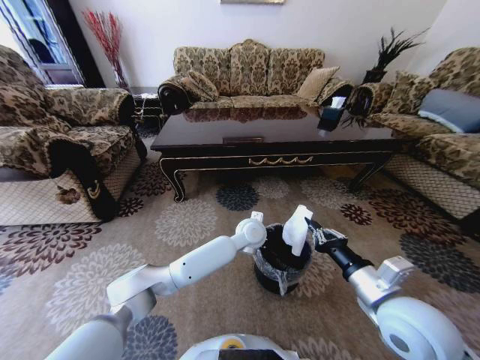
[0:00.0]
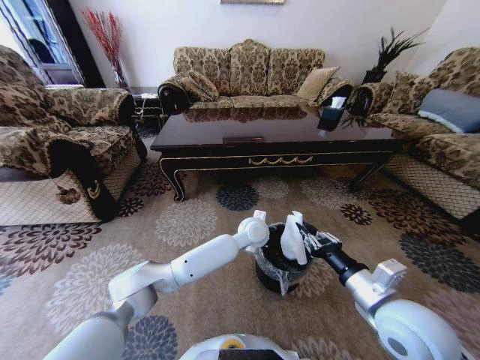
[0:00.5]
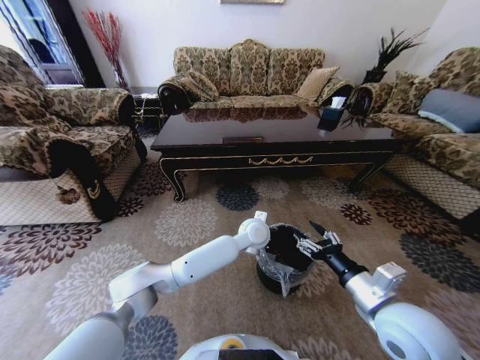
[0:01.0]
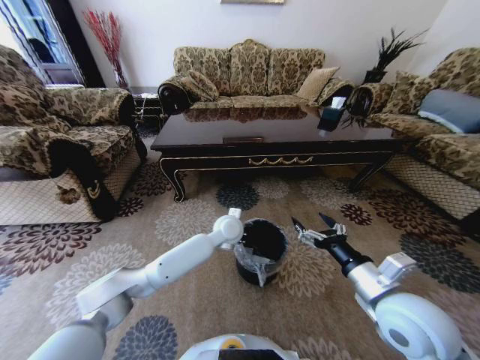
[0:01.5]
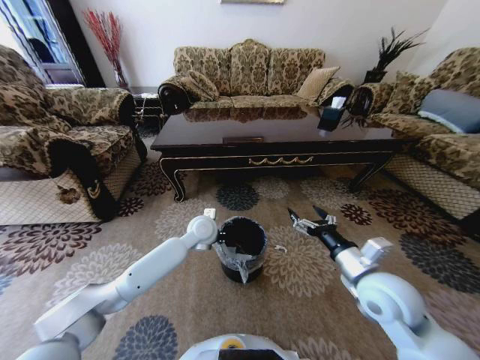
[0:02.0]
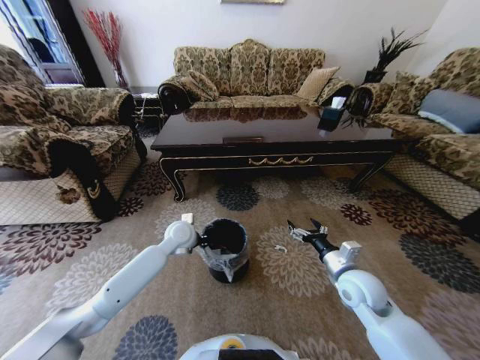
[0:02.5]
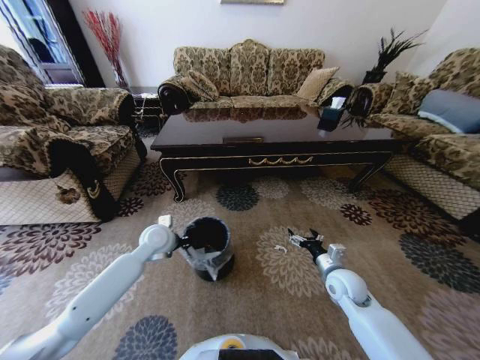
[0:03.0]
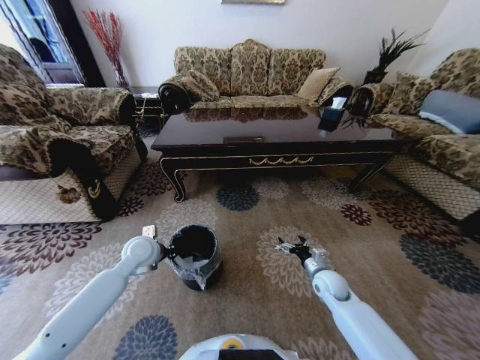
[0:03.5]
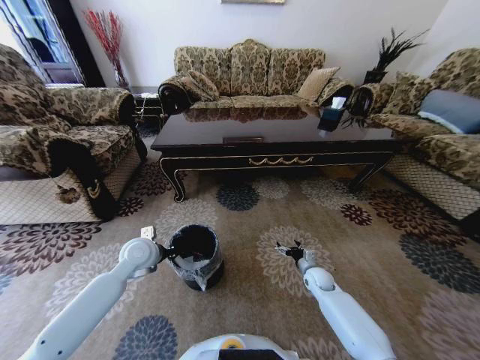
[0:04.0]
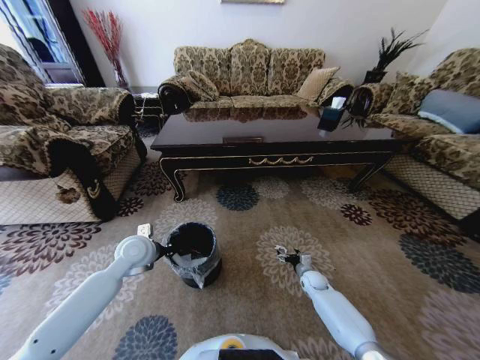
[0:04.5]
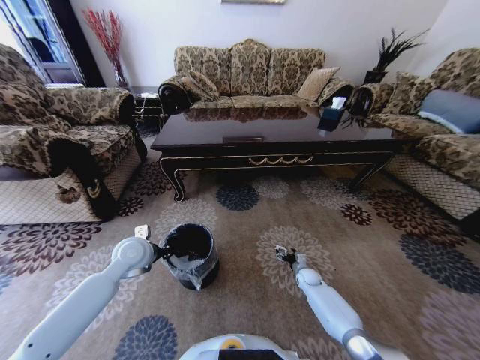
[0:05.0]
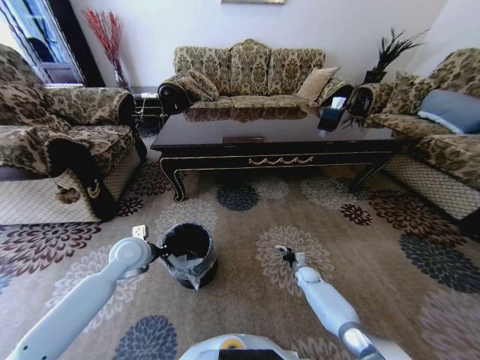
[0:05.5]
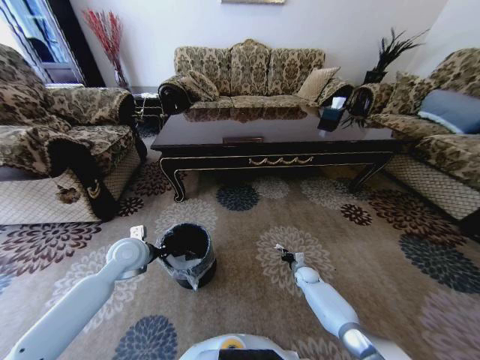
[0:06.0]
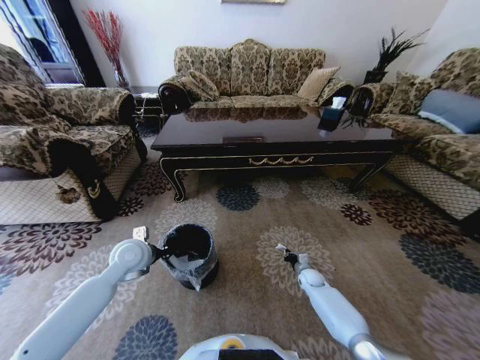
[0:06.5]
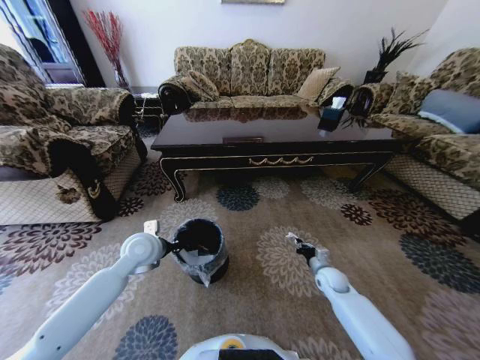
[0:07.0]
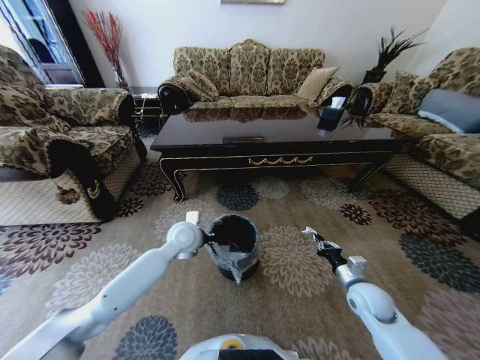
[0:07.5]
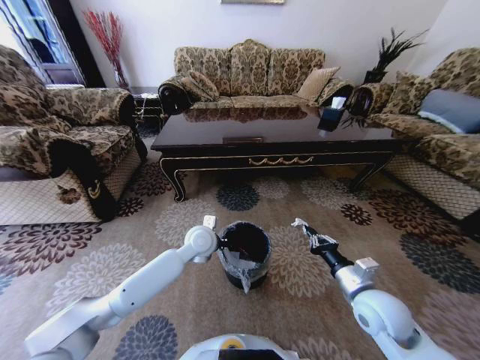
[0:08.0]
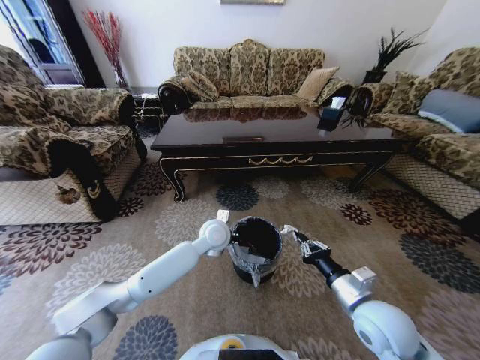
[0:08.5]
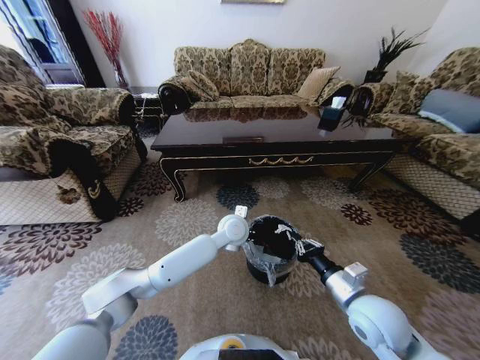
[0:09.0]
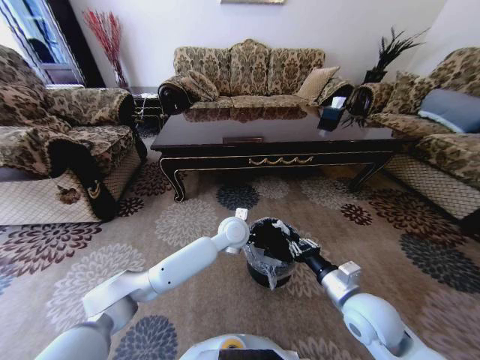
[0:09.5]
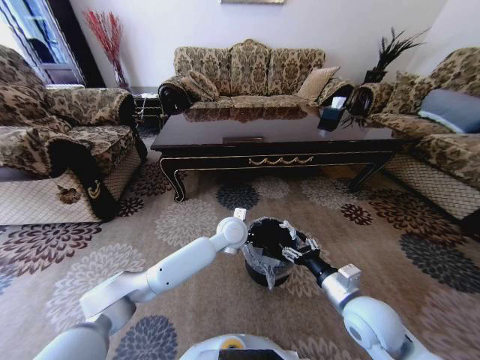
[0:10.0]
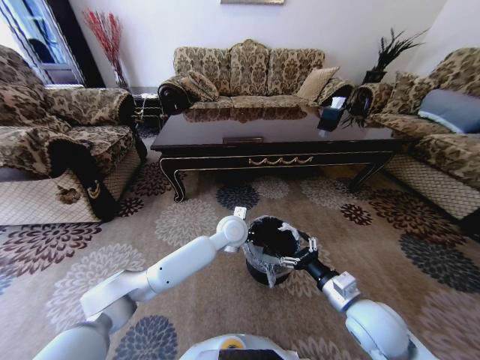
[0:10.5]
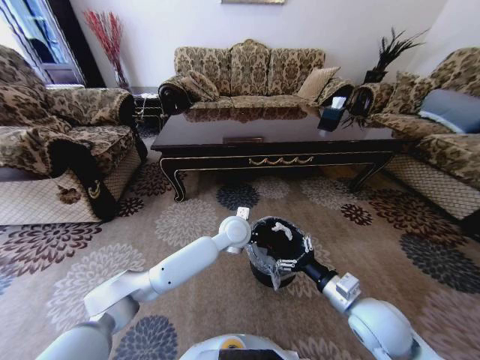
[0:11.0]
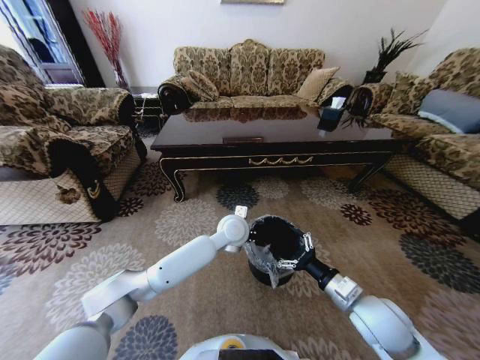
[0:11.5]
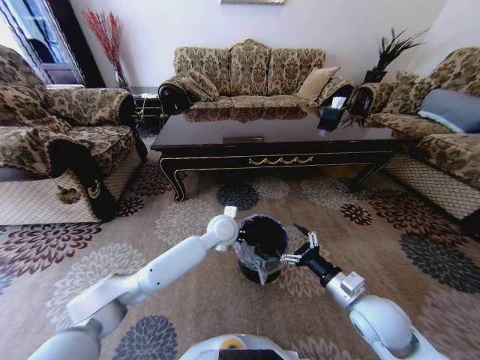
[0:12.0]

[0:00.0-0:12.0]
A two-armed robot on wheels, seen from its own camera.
Task of the whole recording: Move to the front of the table and pick up the trash from the floor, then place it into the trash bin.
0:00.0 to 0:02.0: The right gripper moves forward, roughly 5 cm, and opens. Meanwhile the left gripper shifts about 15 cm to the left.
0:02.0 to 0:04.0: The right gripper heads downward and forward, covering roughly 30 cm; the left gripper moves to the left and backward, about 20 cm.
0:04.0 to 0:06.0: The right gripper shifts roughly 10 cm downward, and closes its fingers.
0:06.0 to 0:08.0: The right gripper goes some 35 cm upward and backward; the left gripper goes roughly 20 cm to the right.
0:08.0 to 0:10.0: The right gripper opens. The left gripper shifts approximately 10 cm to the right.

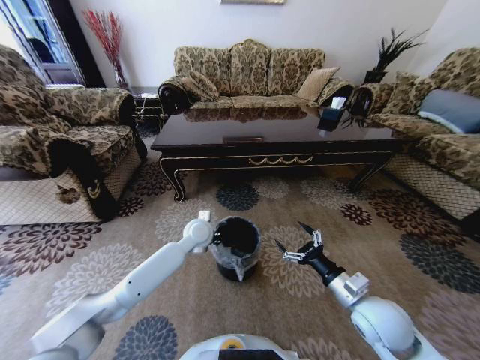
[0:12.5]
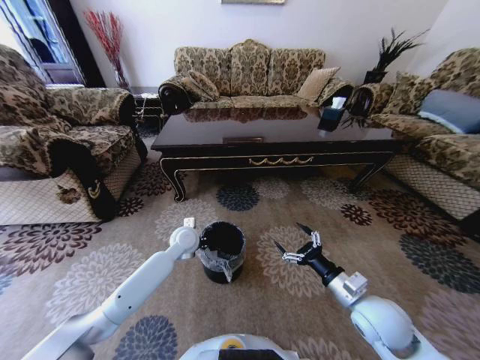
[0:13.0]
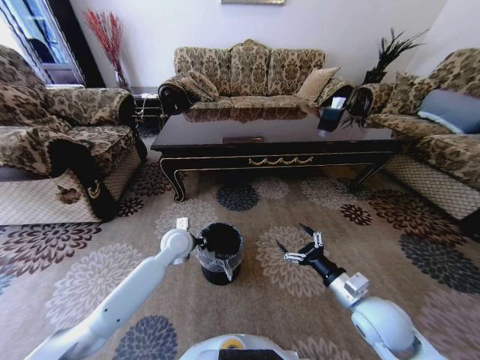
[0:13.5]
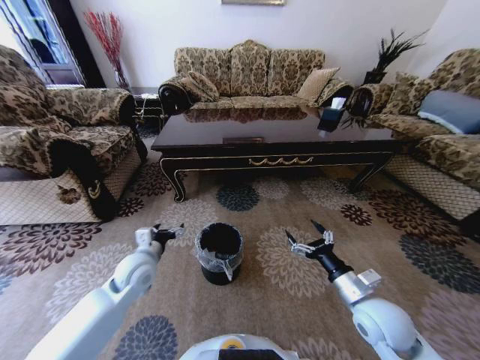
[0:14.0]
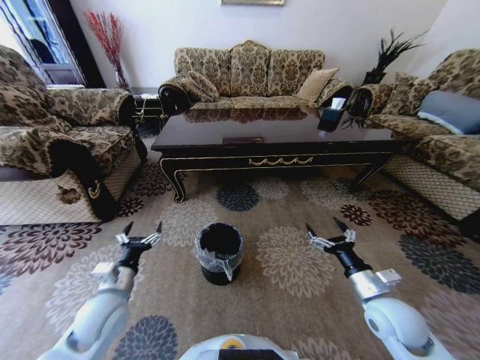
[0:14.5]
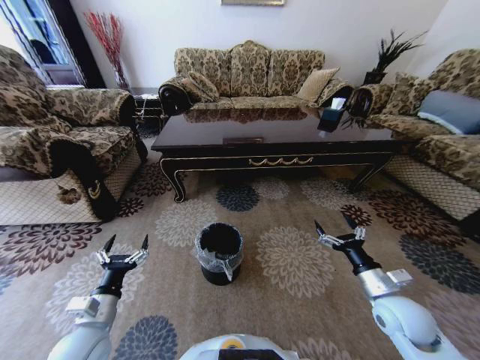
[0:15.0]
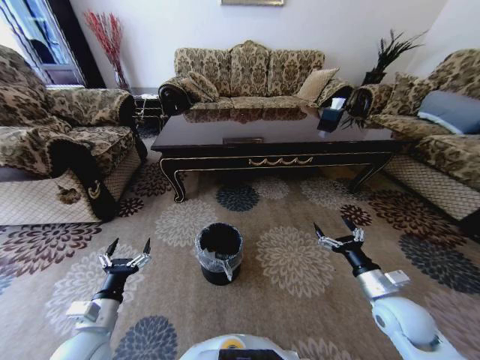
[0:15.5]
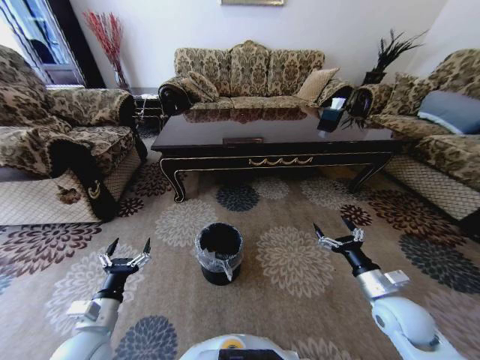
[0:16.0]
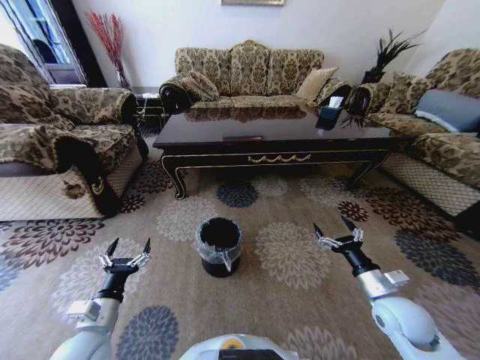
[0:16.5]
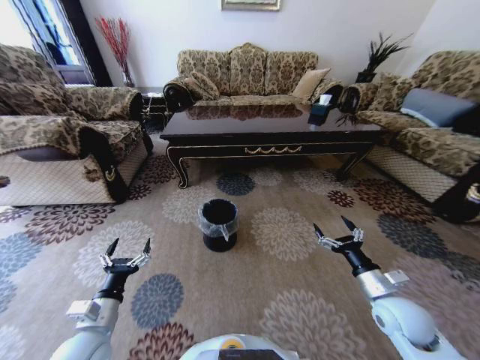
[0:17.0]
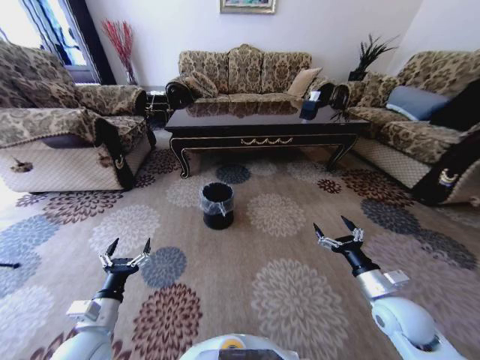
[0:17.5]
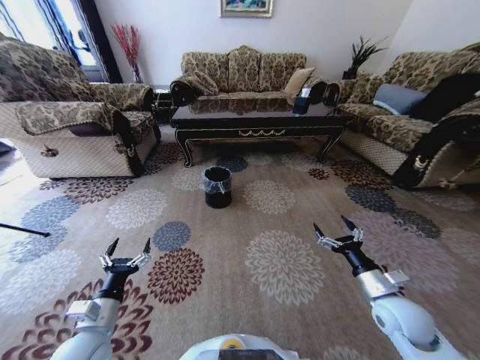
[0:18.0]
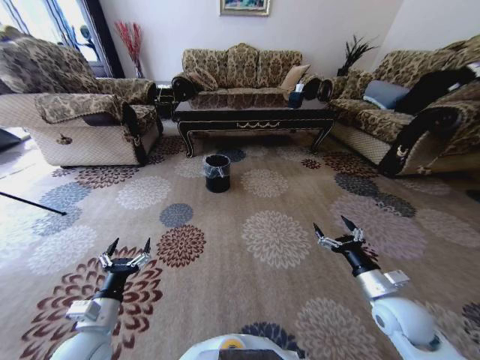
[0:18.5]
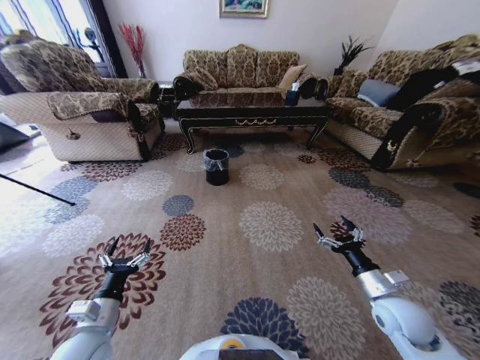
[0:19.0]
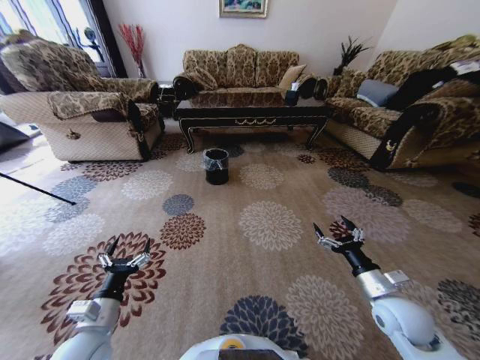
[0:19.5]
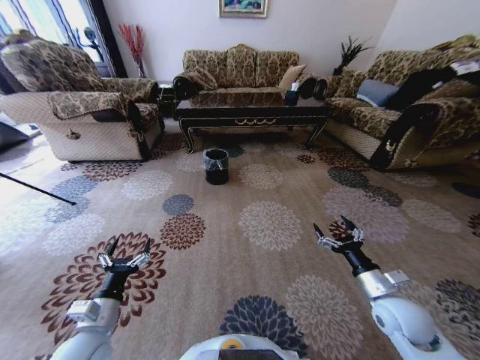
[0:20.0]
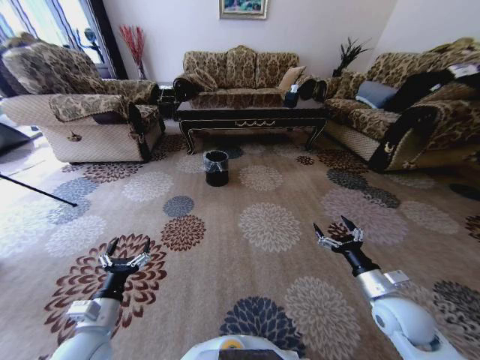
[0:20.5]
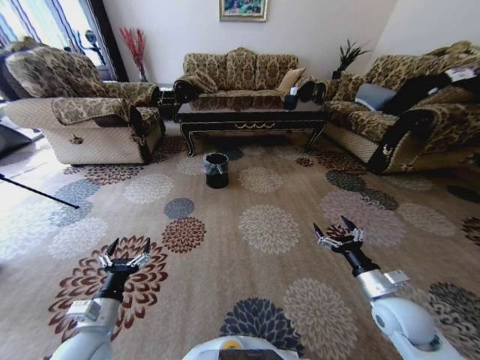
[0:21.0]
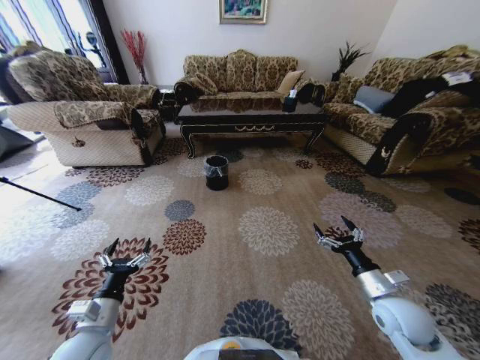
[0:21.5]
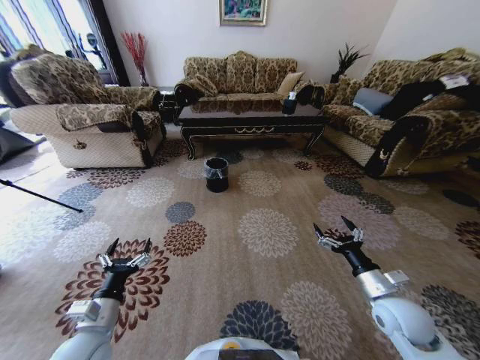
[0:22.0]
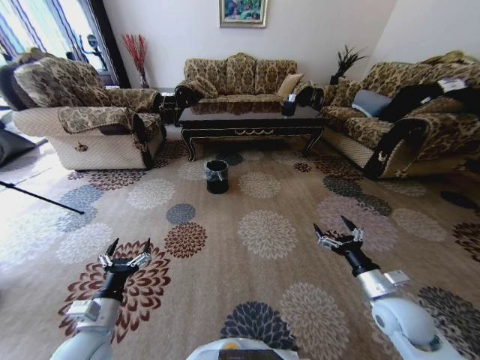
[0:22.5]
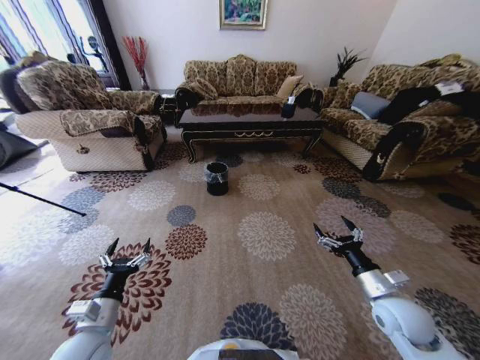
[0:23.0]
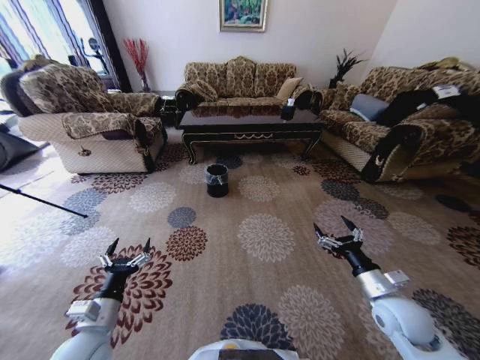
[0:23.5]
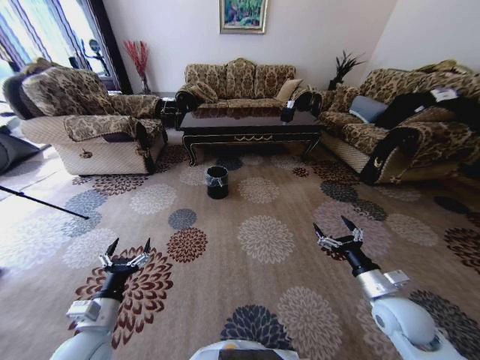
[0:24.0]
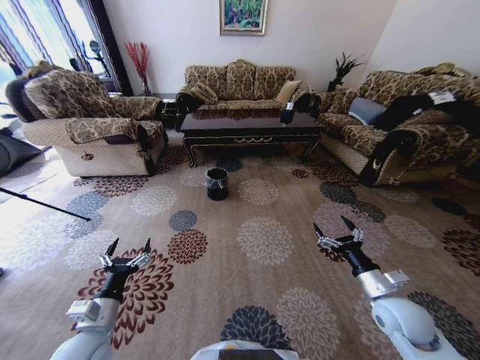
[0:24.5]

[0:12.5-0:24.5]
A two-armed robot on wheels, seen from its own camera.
Task of the whole recording: Move to the front of the table and pick up the trash from the floor, then place it into the trash bin.
0:12.5 to 0:14.5: The right gripper moves some 5 cm; the left gripper goes approximately 30 cm backward and to the left, and opens up.
0:14.5 to 0:16.5: The left gripper travels backward by approximately 5 cm.

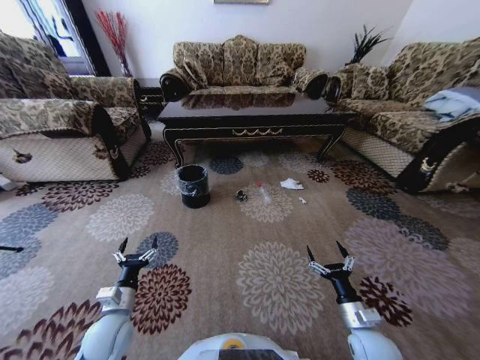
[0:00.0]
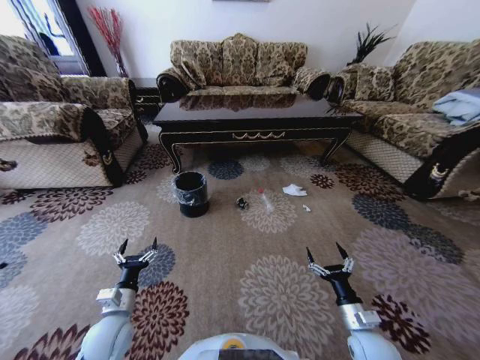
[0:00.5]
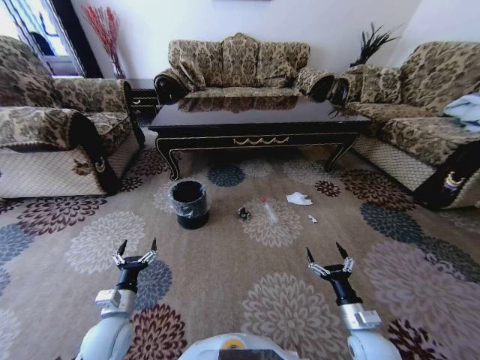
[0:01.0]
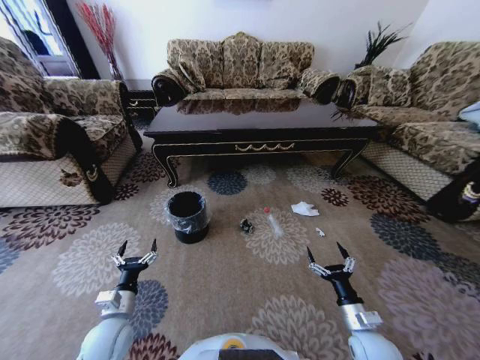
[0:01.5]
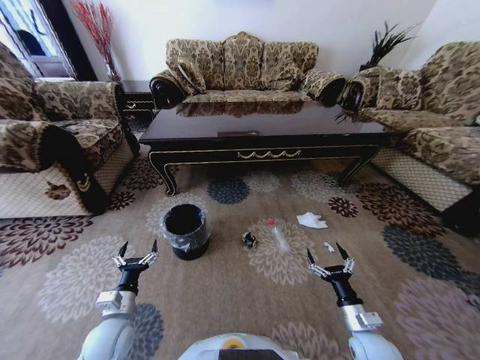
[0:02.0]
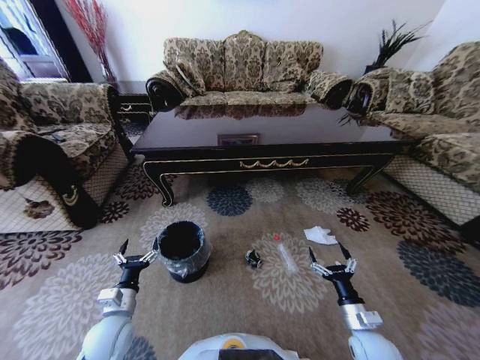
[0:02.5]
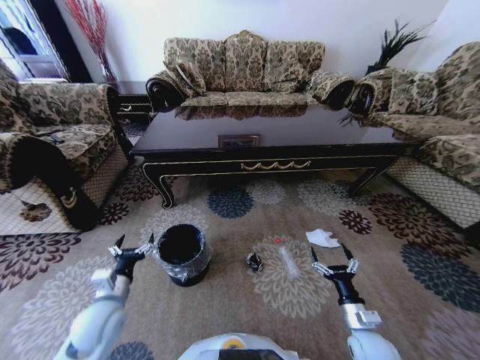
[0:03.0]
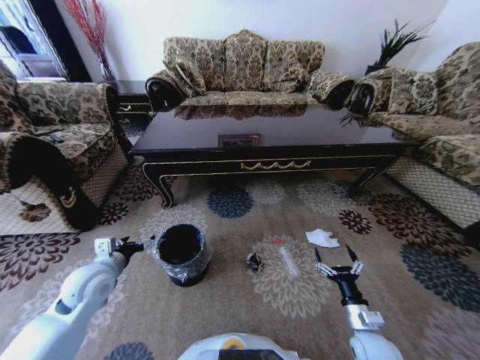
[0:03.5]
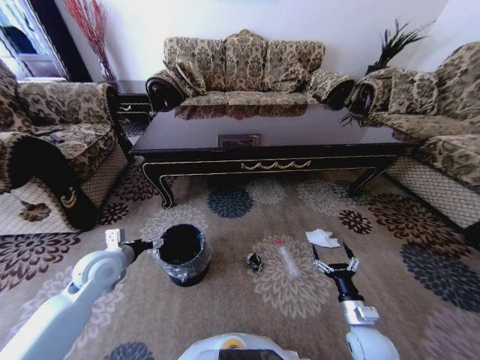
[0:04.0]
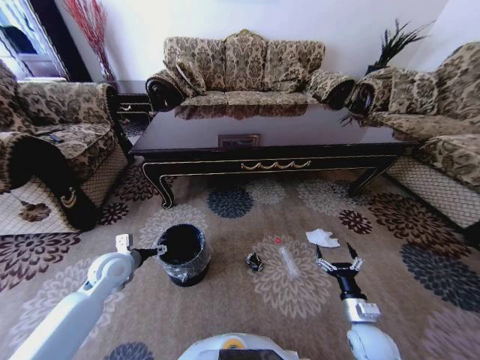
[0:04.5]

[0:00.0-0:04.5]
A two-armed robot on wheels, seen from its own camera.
Task of the whole recording: Move to the front of the table and pick up the trash from the floor, then place it into the trash bin.
0:02.0 to 0:04.5: The left gripper heads forward and upward, covering some 15 cm.
